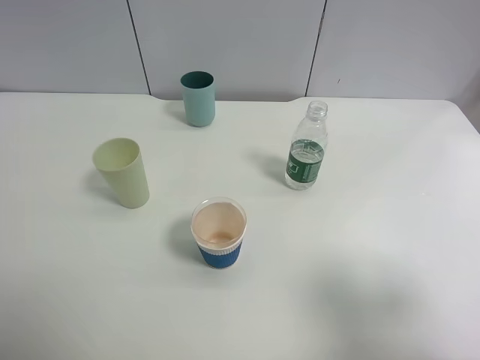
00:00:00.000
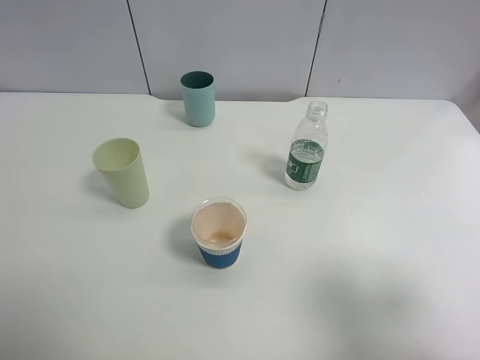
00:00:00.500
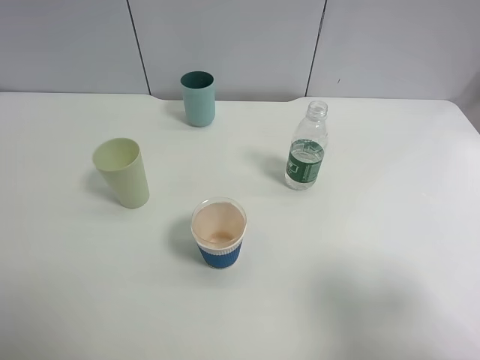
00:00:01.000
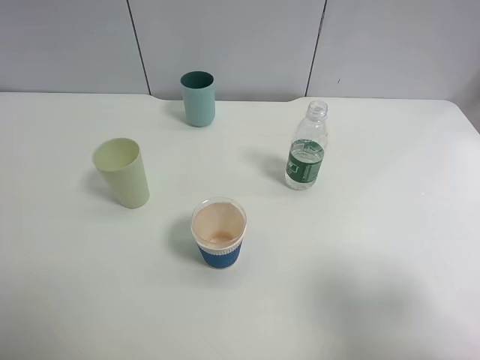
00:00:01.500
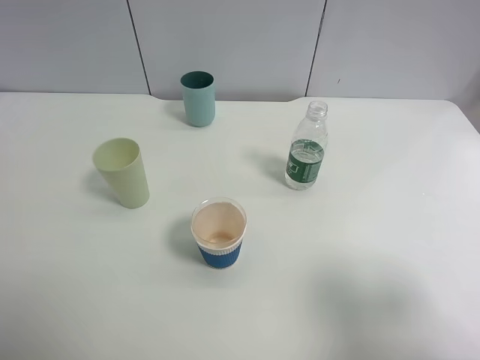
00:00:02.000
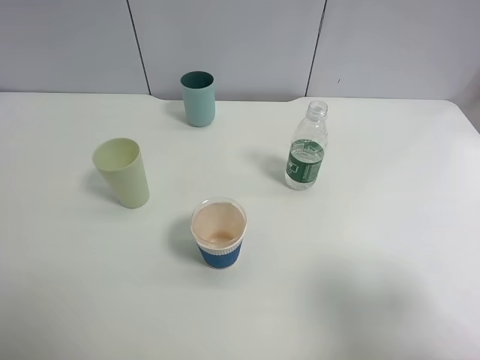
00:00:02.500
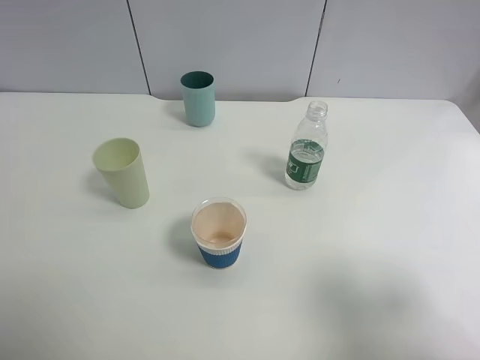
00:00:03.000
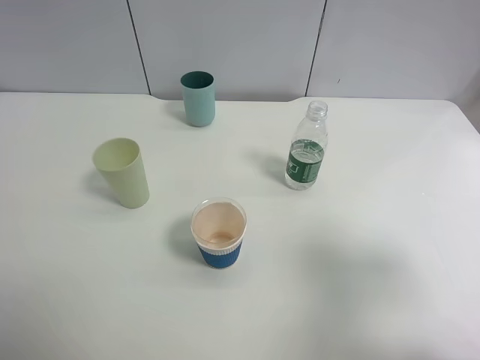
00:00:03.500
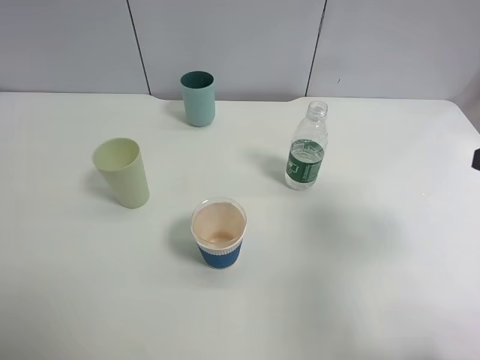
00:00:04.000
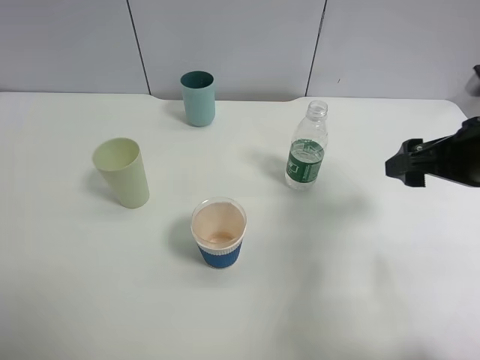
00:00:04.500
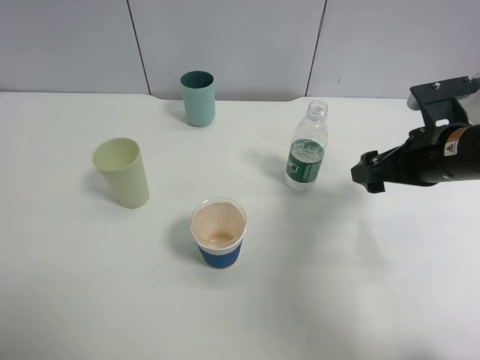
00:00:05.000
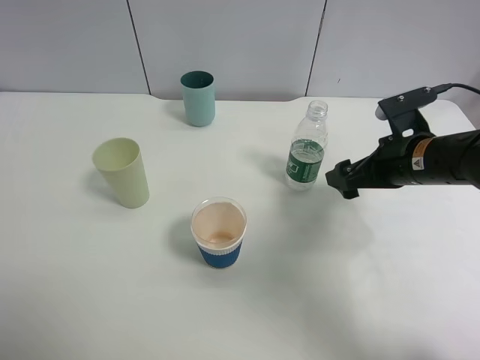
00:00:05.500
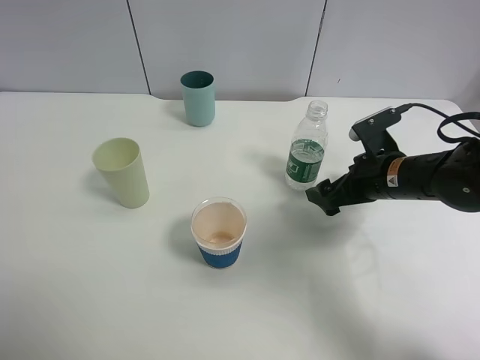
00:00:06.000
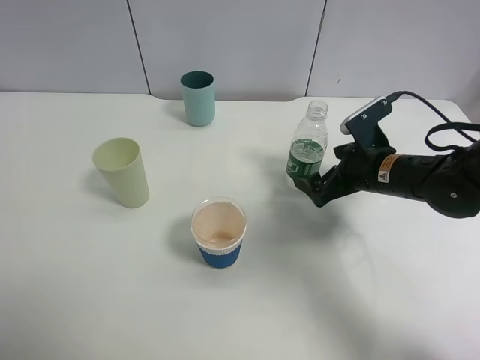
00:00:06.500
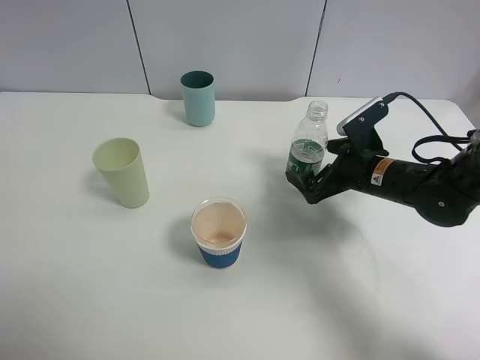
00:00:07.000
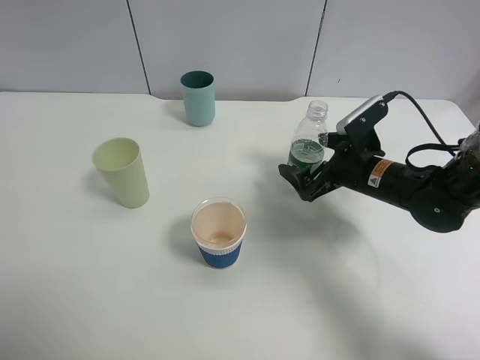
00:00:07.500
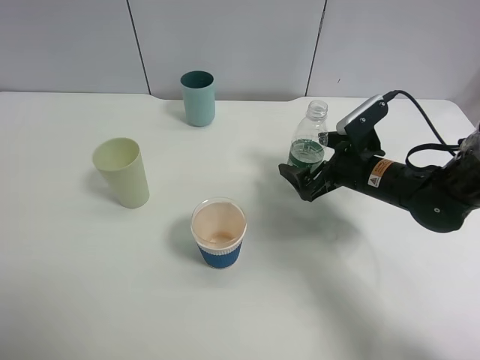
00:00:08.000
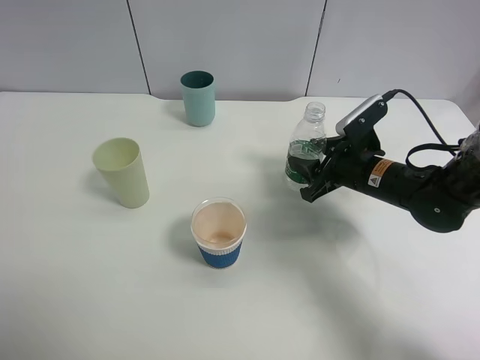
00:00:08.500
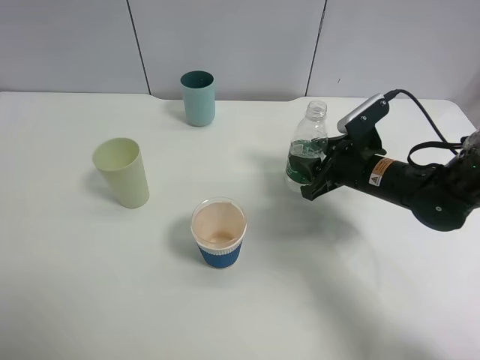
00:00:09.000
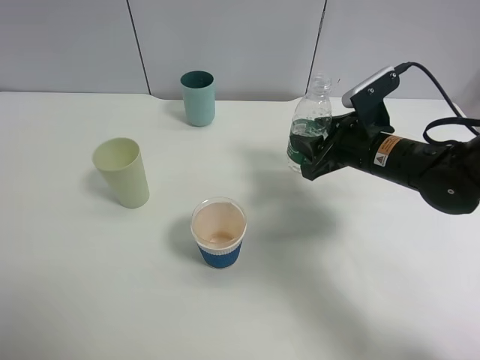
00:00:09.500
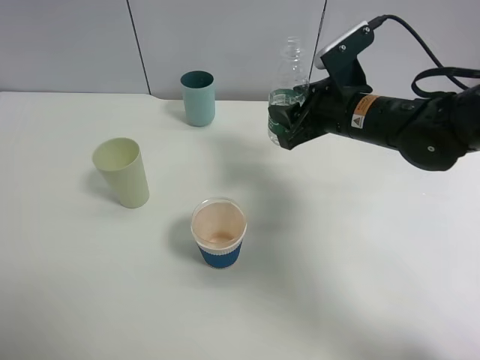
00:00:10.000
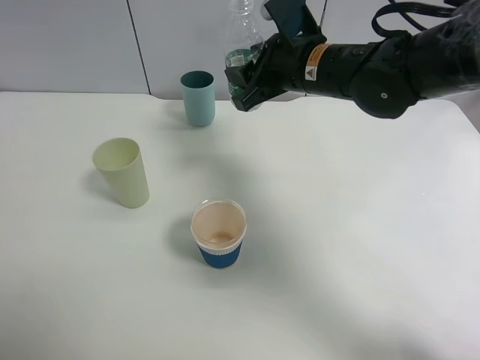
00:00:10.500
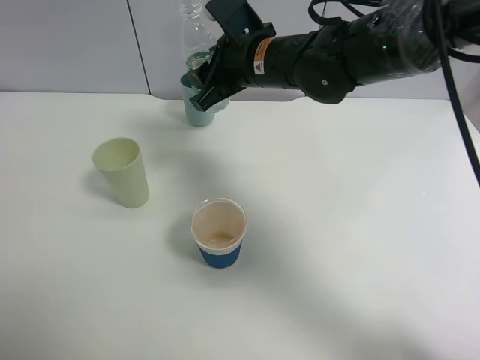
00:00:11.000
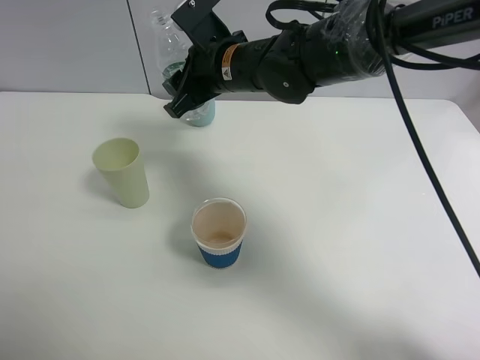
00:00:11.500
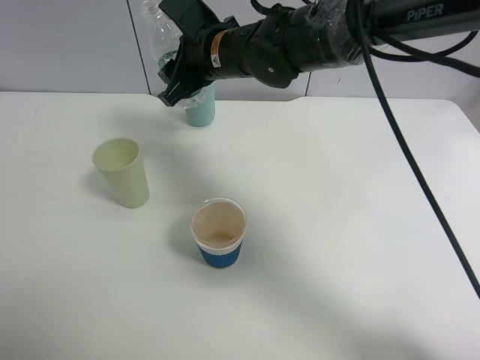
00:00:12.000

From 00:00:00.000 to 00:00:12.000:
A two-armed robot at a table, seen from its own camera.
Task of the whole recording: use a clamp to hold the bottle of the drink, pour the beverage into a random cup, then clamp the cup containing the drink and pour the drink into another random cup.
Step, from 00:00:00.000 to 00:00:09.500: Pick up the water bottle with right gripper.
From 00:00:00.000 to 00:00:02.000: The two grippers keep their place.
From 00:00:02.000 to 00:00:04.000: The right gripper goes some 15 cm forward.
From 00:00:04.000 to 00:00:06.000: The right gripper is displaced downward, forward and to the left by roughly 25 cm.
From 00:00:08.000 to 00:00:10.000: The right gripper moves upward and to the left, approximately 10 cm, and closes its fingers.
From 00:00:10.000 to 00:00:12.000: The right gripper travels to the left by roughly 15 cm.

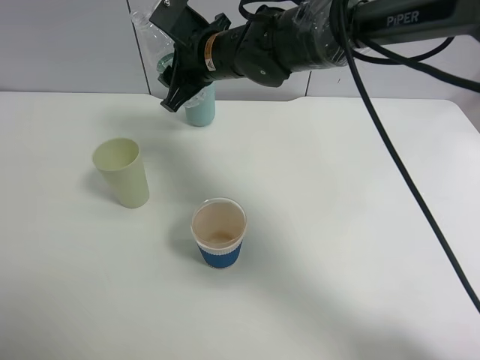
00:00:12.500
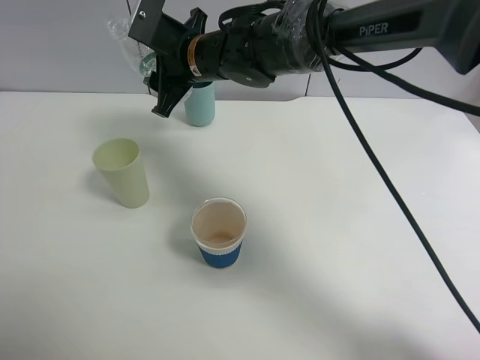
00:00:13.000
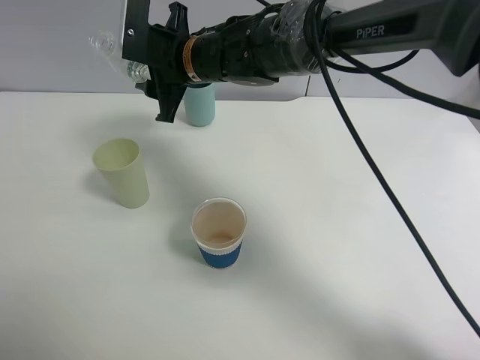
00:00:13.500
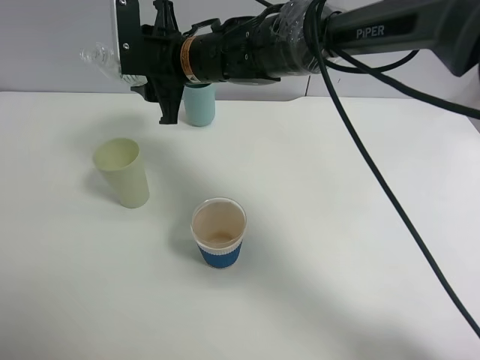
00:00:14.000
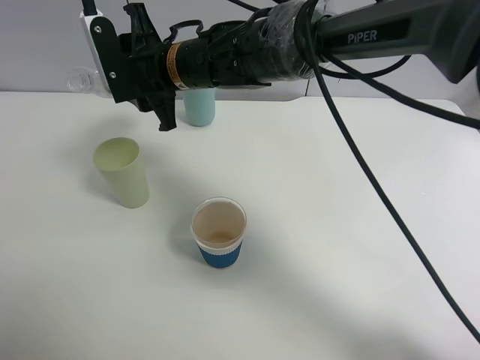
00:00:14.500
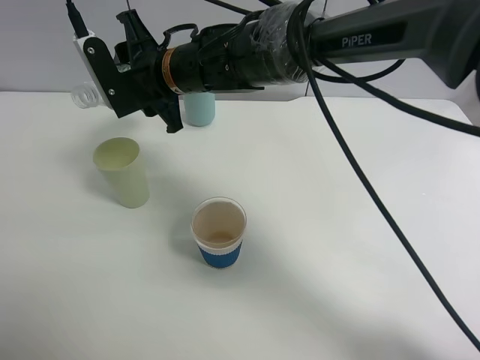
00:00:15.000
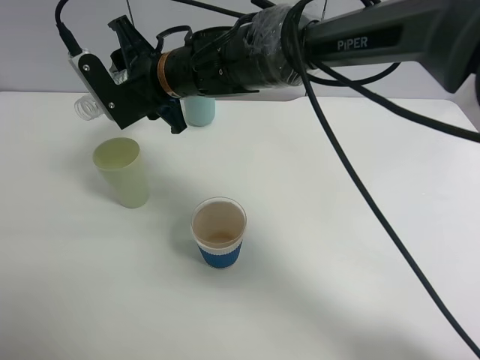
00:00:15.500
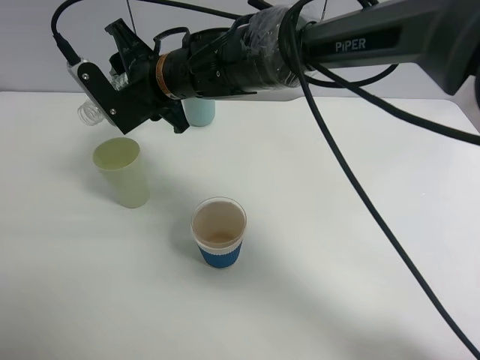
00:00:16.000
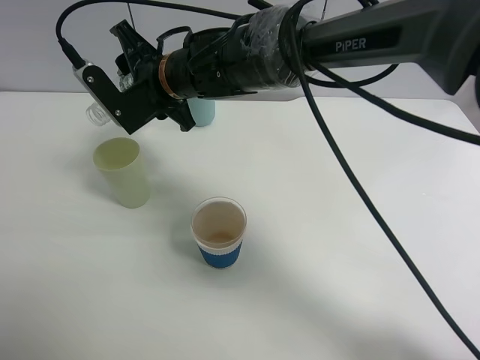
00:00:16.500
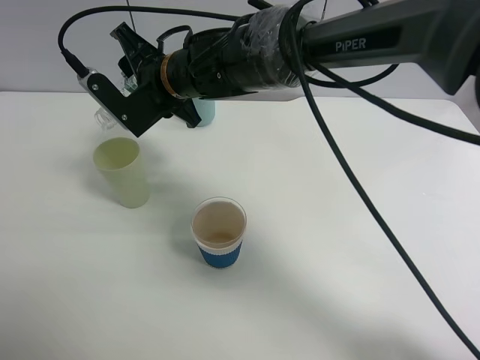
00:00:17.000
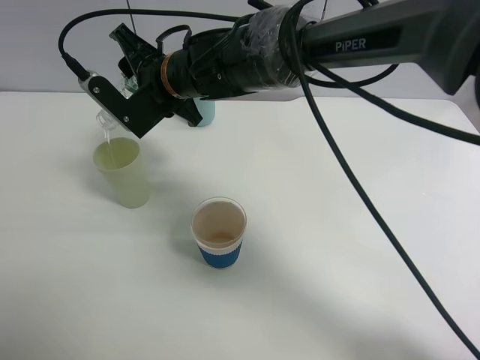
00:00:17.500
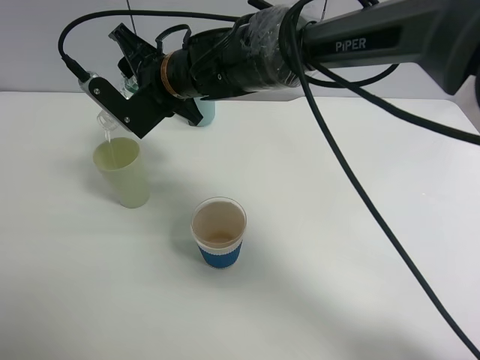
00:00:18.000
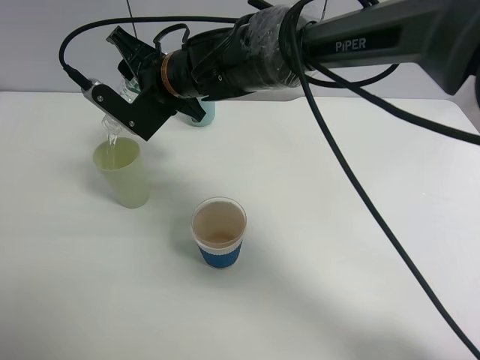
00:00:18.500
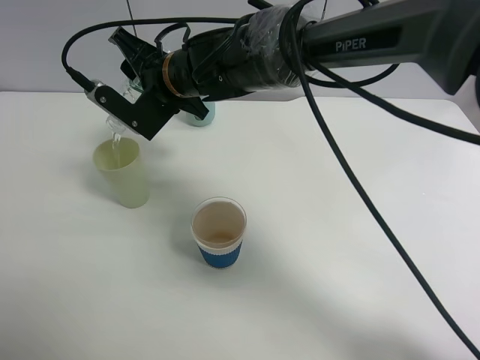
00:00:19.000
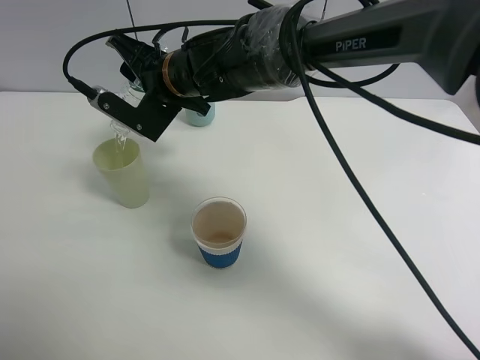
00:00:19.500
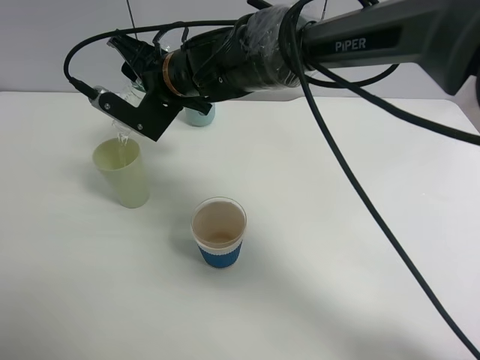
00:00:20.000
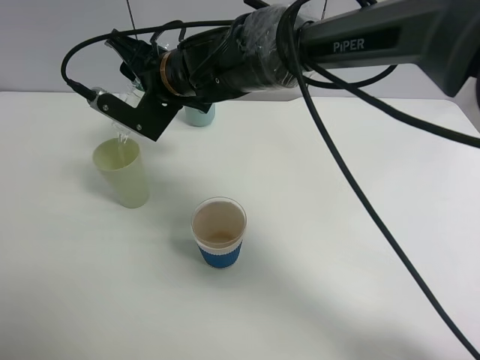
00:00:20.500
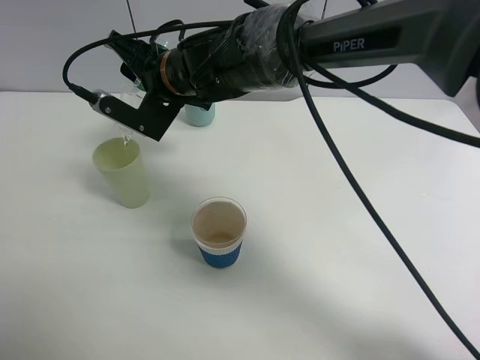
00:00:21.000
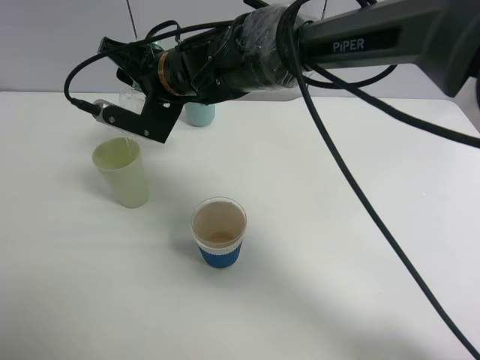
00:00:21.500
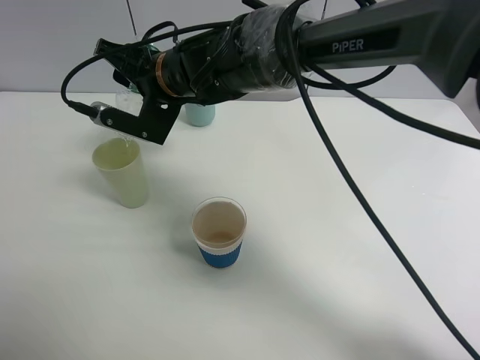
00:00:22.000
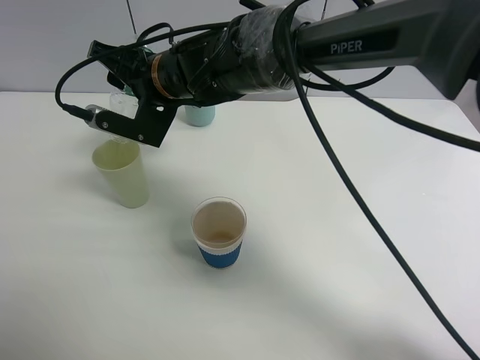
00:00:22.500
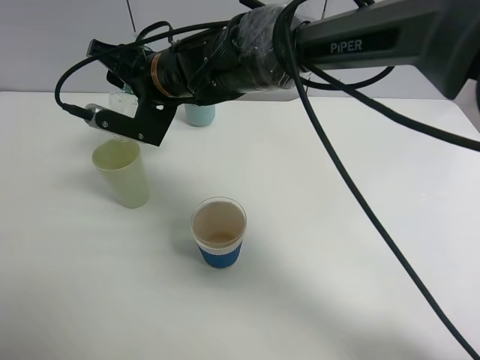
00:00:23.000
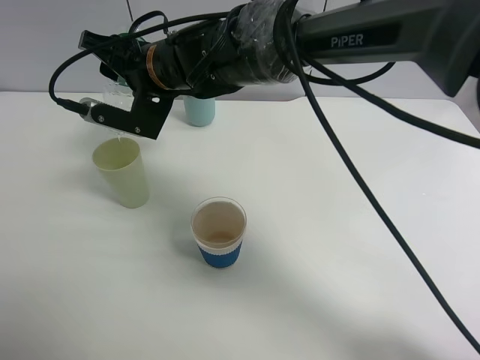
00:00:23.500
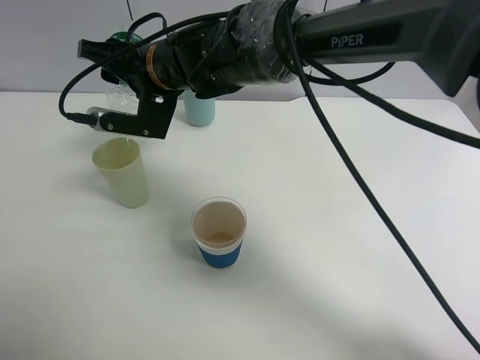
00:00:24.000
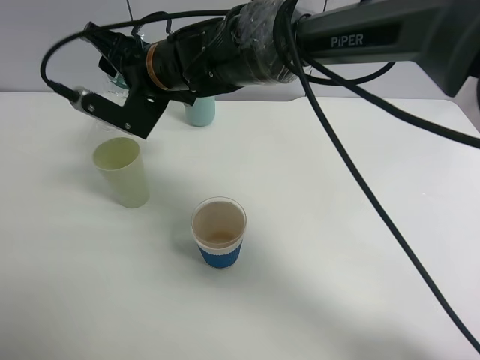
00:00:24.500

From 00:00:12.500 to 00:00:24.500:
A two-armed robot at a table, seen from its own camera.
Task of the whole recording: use a clamp to hold the bottle of the drink, pour the beverage into a random cup, then clamp the cup containing the drink and pour the drink into another random cup.
Step, from 00:00:12.500 to 00:00:24.500: Pour water into the green plastic cup with right gripper.
From 00:00:12.500 to 00:00:14.500: The right gripper ends up about 5 cm from where it was.
From 00:00:16.500 to 00:00:18.500: There are only small adjustments of the grippers.
From 00:00:18.500 to 00:00:22.500: The grippers stay close to where they were, moving slightly.
From 00:00:22.500 to 00:00:24.500: The grippers make only small movements.

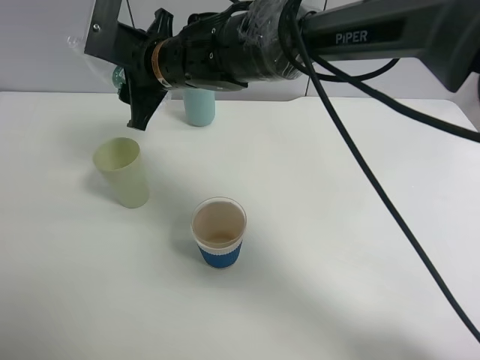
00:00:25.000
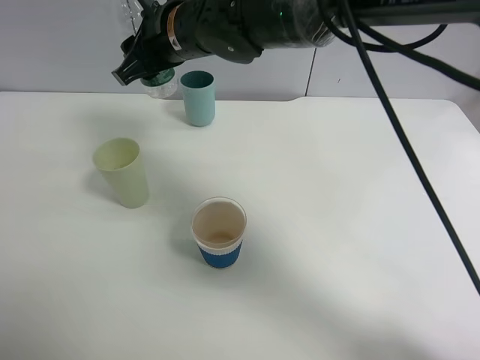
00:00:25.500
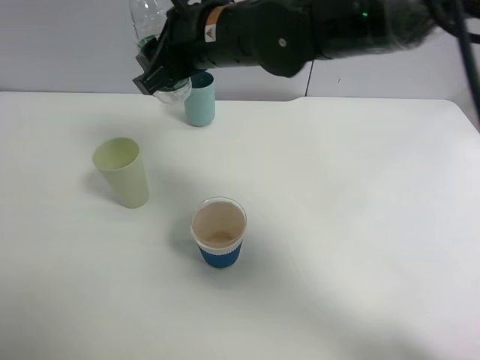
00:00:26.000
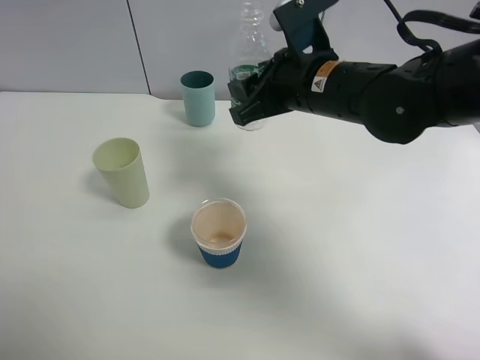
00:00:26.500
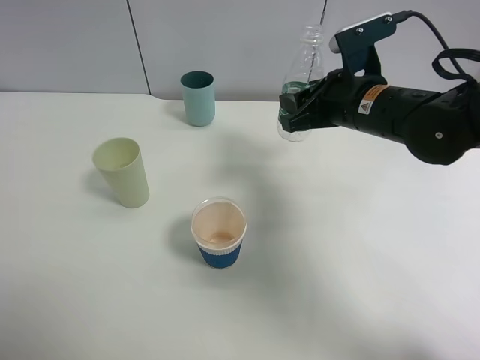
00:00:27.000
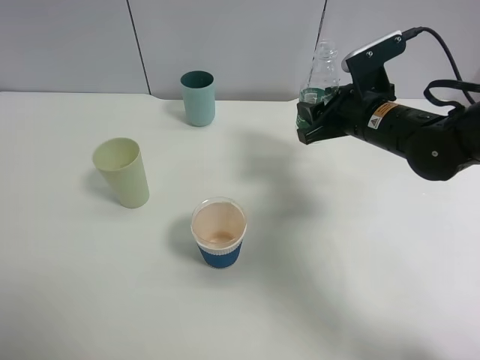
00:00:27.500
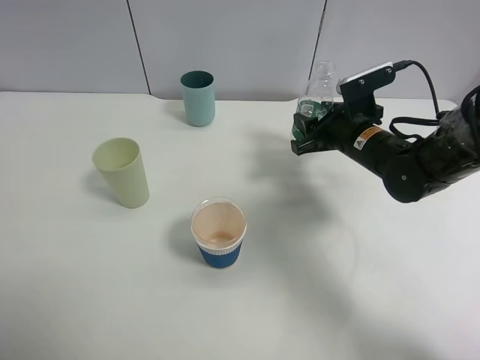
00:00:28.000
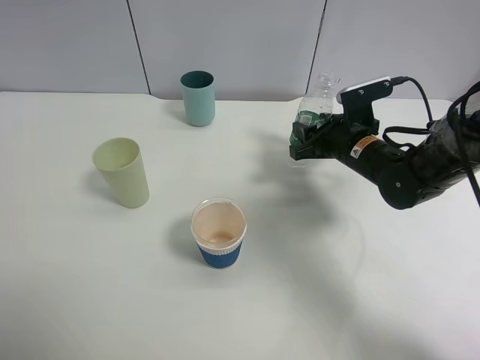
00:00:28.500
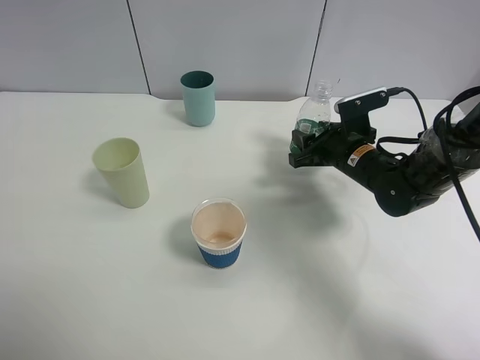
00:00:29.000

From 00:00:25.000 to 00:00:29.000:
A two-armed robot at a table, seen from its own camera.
Task of the whole recording: use a clamp to hold the bottle of the drink, pour the beverage into a random cup, then clamp the cup containing the drink and pour the drink into another random cup.
From 00:00:25.000 to 00:00:27.000: The right gripper moves to the right, approximately 25 cm.
From 00:00:27.000 to 00:00:29.000: The right gripper shifts about 10 cm downward.
